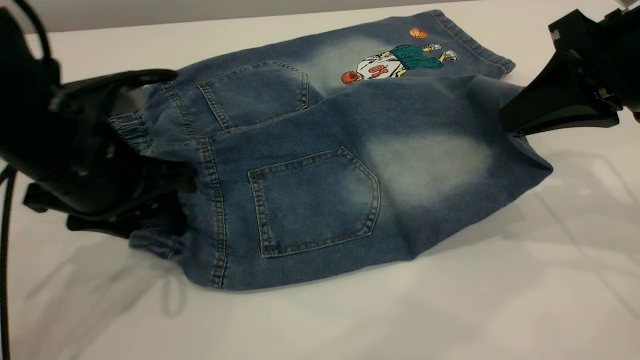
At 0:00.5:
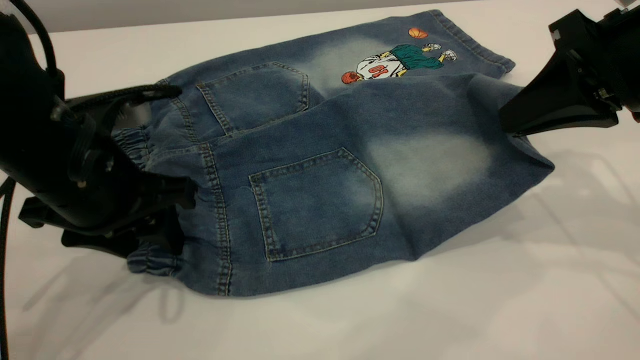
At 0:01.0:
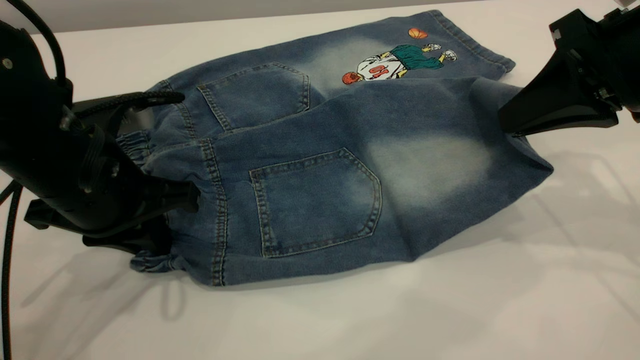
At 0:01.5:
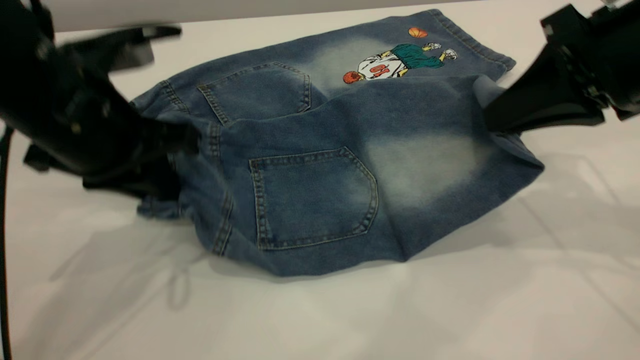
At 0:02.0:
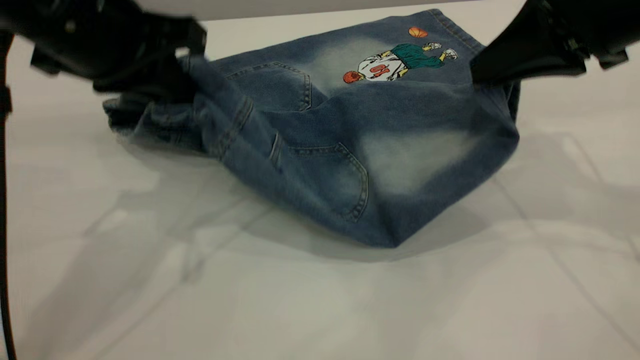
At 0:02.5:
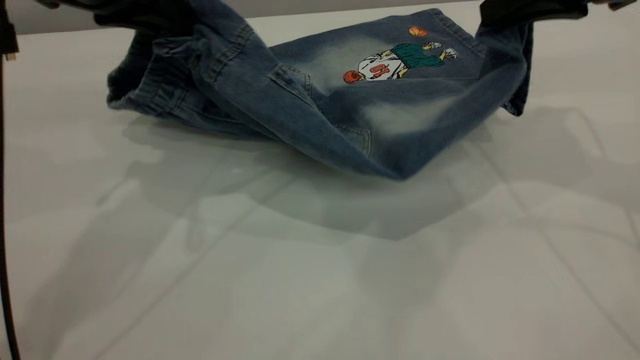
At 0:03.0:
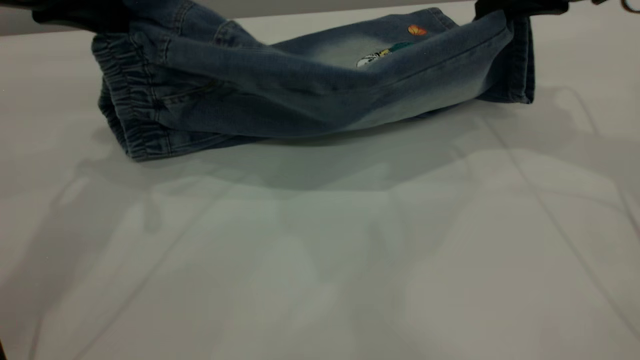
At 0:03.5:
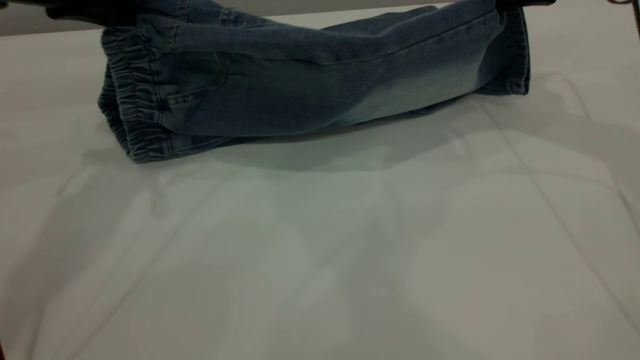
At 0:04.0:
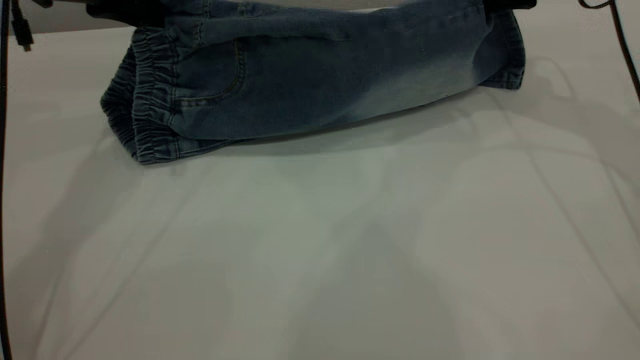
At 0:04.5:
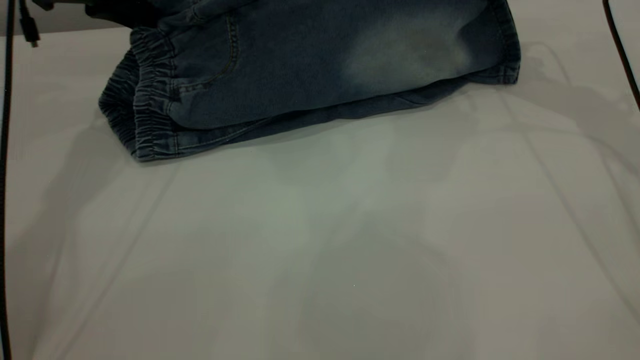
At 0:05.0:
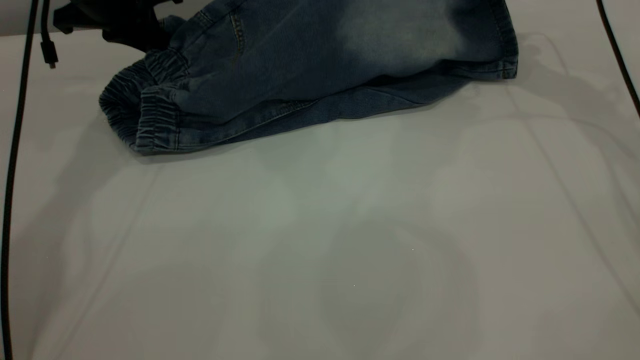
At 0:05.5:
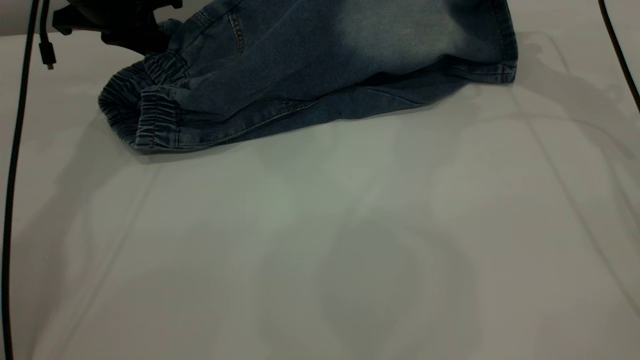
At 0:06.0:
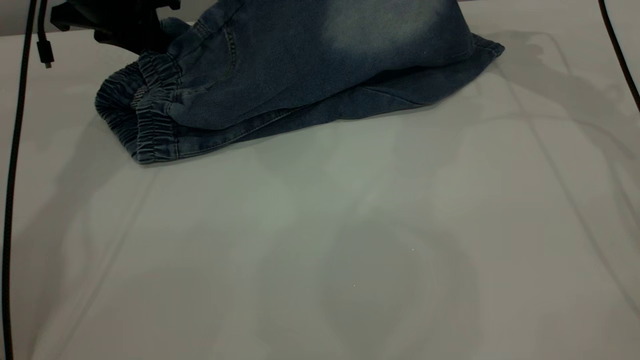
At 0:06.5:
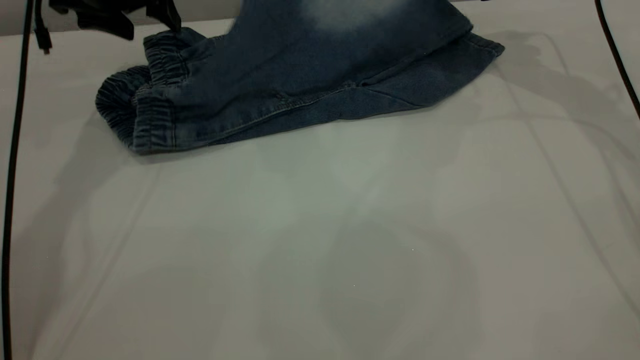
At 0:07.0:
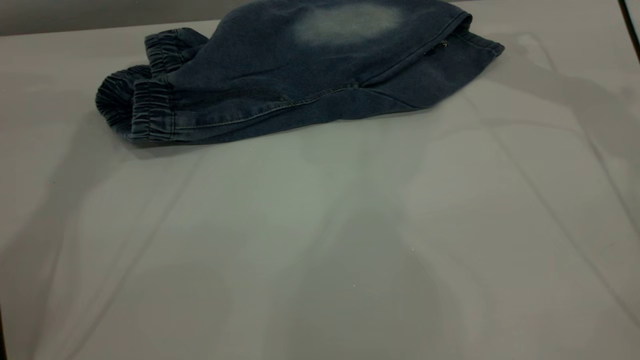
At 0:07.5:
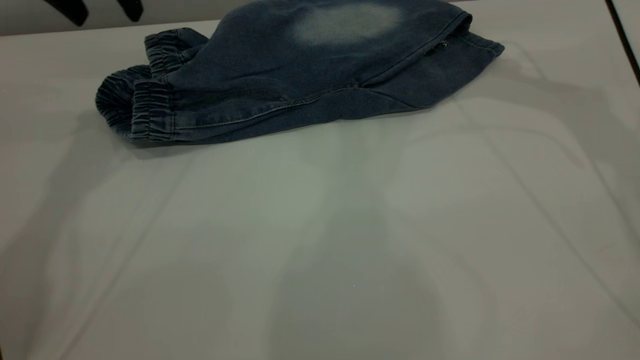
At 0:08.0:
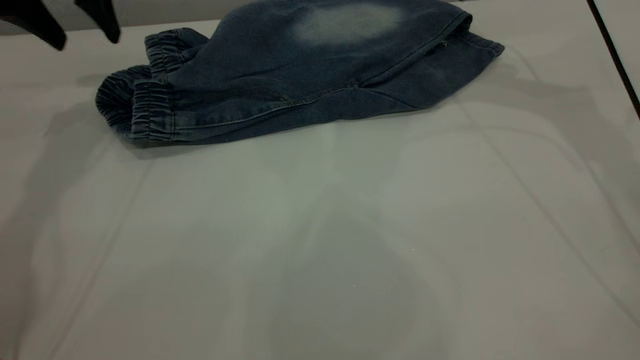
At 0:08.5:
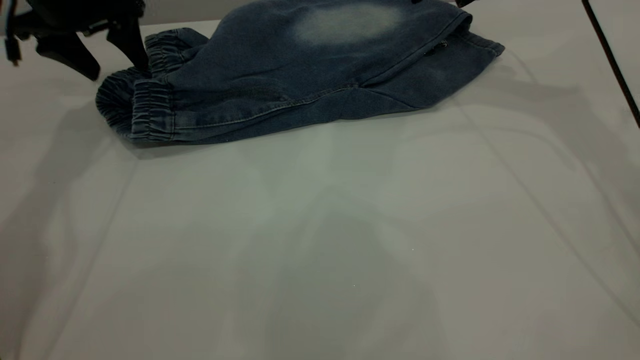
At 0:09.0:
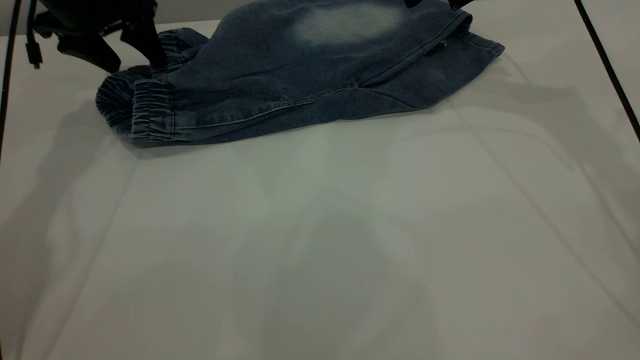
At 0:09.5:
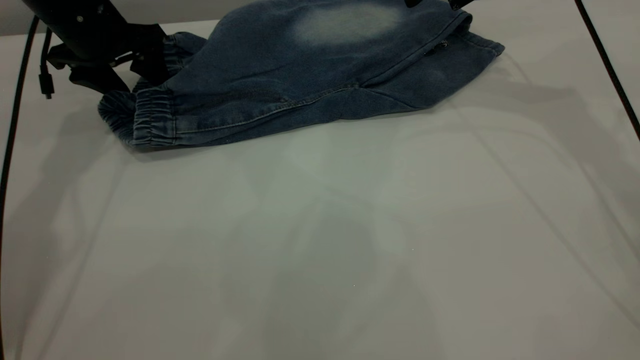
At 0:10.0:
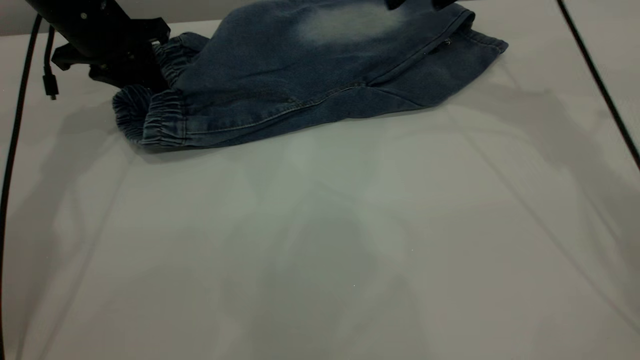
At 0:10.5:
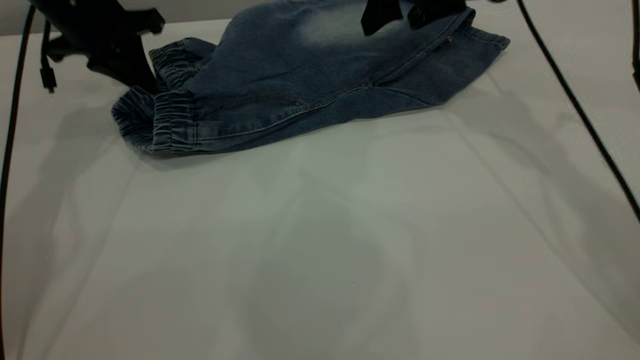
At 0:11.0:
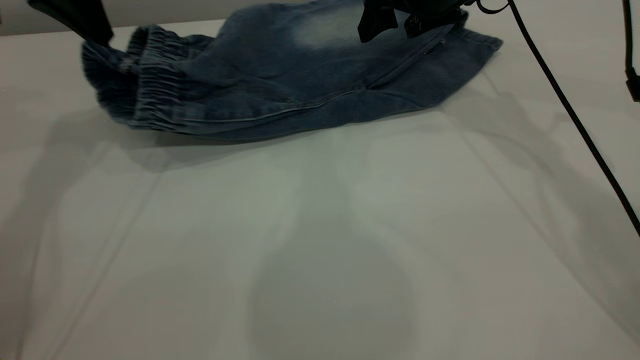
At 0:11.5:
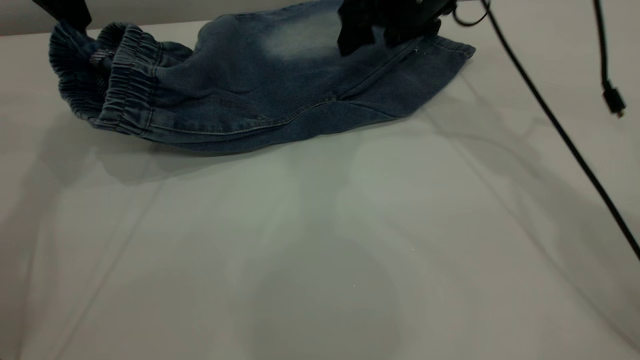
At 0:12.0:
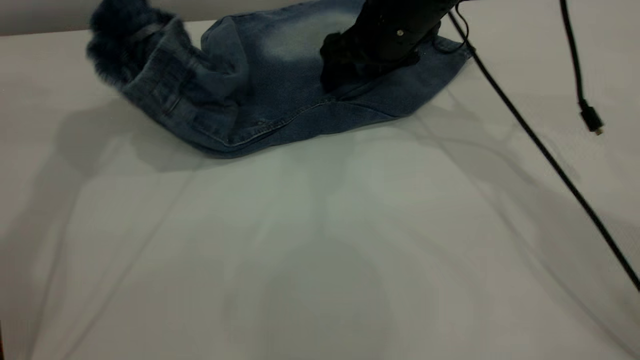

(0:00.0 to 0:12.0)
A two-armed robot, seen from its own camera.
Step, 0:00.0 - 0:07.0: Fold the bottom of the pants upward.
0:00.0 - 0:02.0: The left gripper travels upward by roughly 10 cm, and closes its fingers.
0:02.0 - 0:04.0: The left gripper is displaced forward and to the left by some 15 cm. Meanwhile the right gripper goes approximately 15 cm forward.
0:04.0 - 0:06.0: The grippers both shift forward by approximately 5 cm. The right gripper opens.
0:06.0 - 0:08.0: The right gripper moves upward, approximately 5 cm. Meanwhile the left gripper ends up approximately 5 cm from where it was, and opens.
0:08.0 - 0:10.0: The left gripper shifts roughly 10 cm downward, and closes up.
0:10.0 - 0:12.0: The left gripper heads upward, covering approximately 15 cm. The right gripper heads downward and to the left, covering roughly 10 cm.

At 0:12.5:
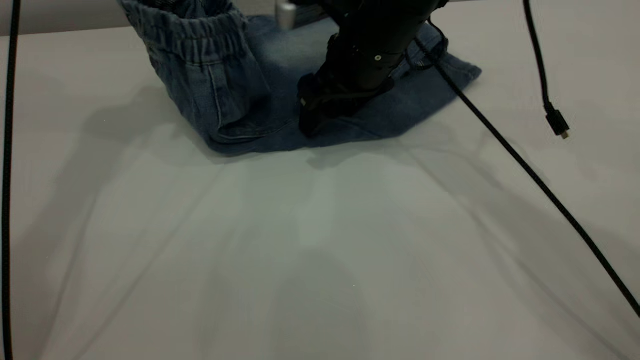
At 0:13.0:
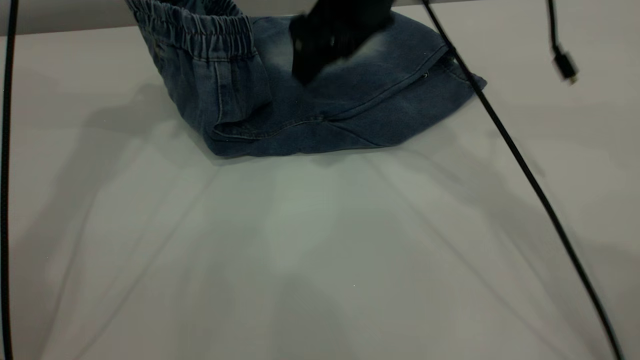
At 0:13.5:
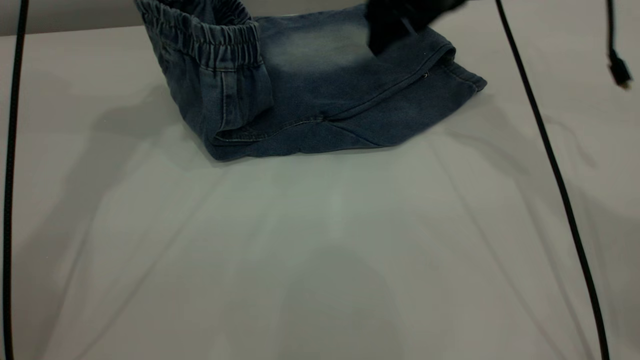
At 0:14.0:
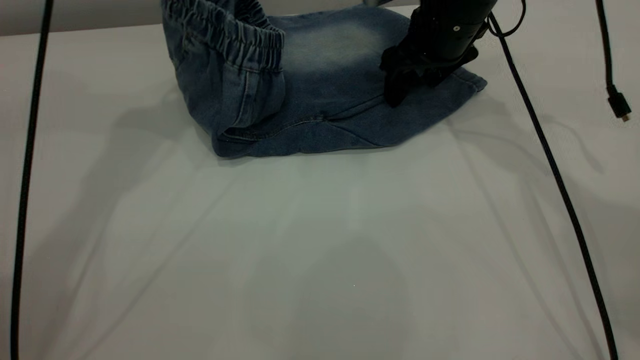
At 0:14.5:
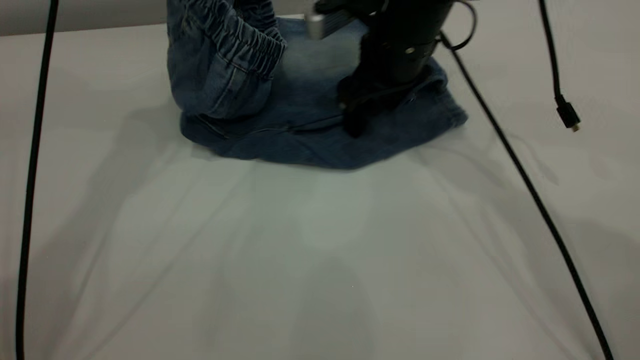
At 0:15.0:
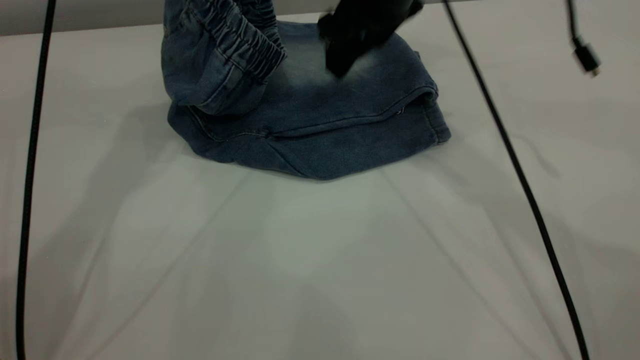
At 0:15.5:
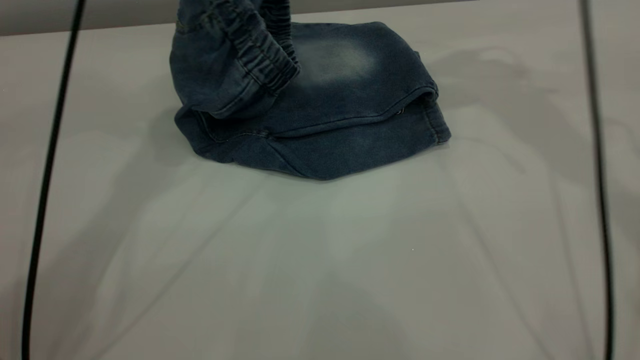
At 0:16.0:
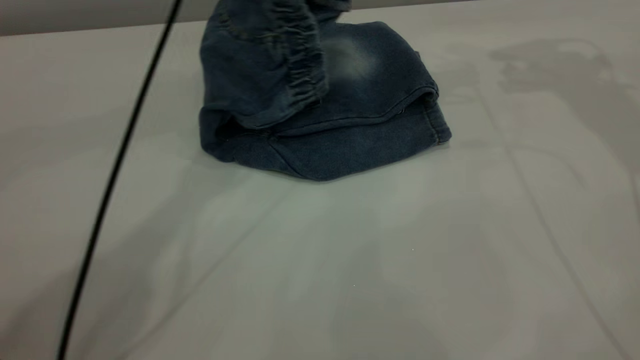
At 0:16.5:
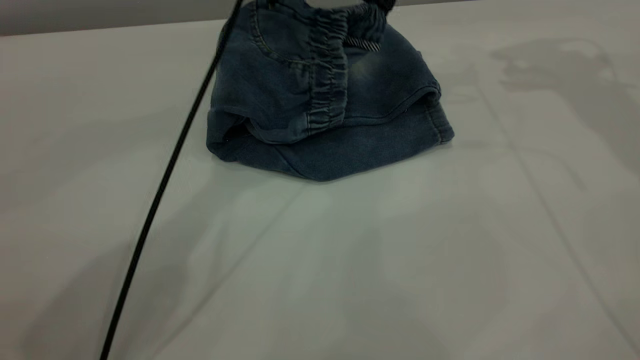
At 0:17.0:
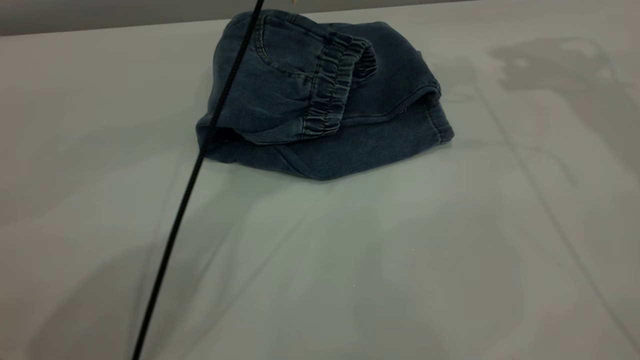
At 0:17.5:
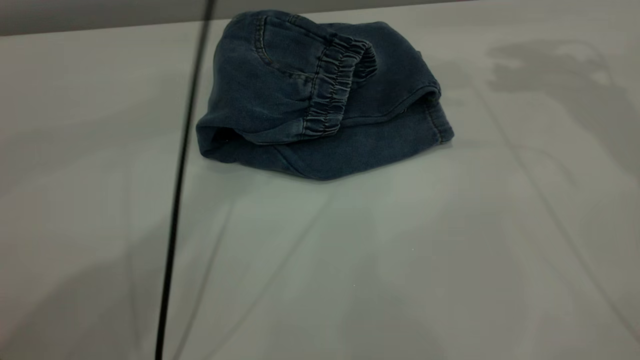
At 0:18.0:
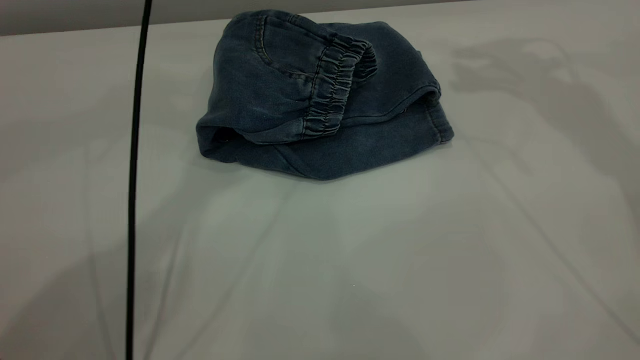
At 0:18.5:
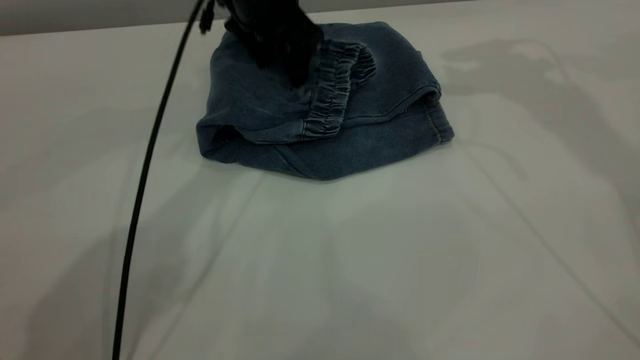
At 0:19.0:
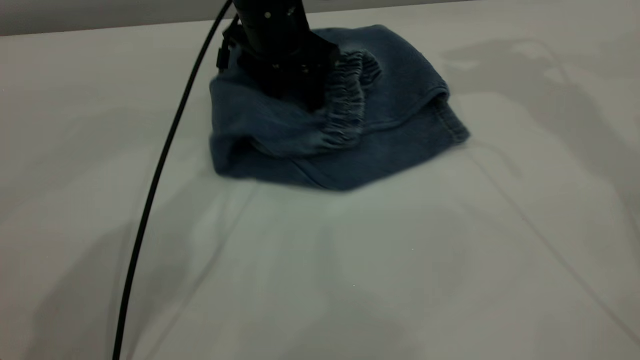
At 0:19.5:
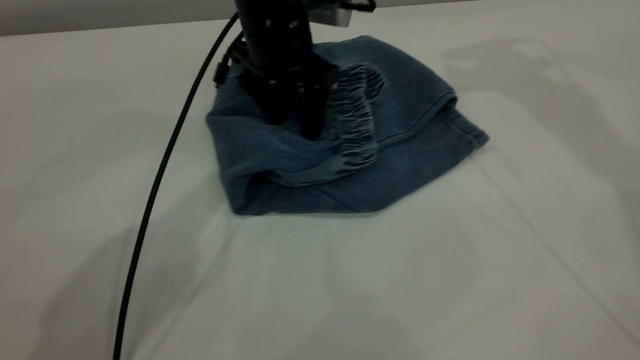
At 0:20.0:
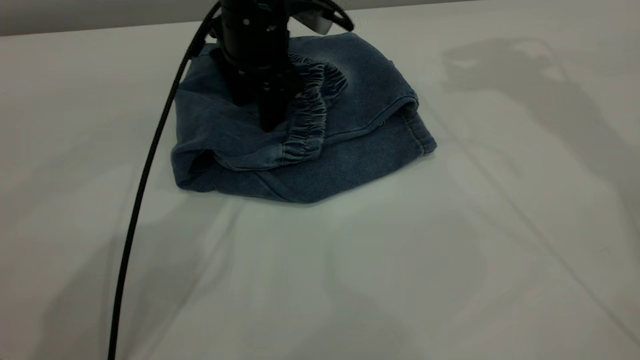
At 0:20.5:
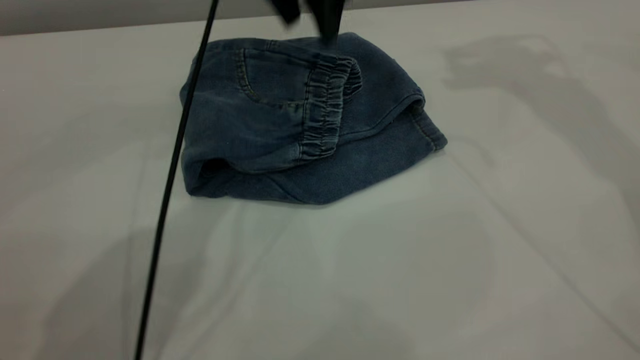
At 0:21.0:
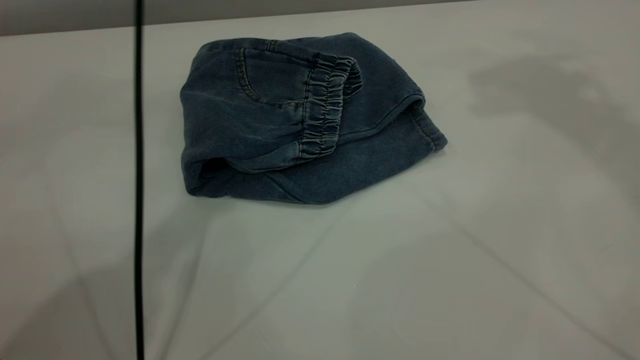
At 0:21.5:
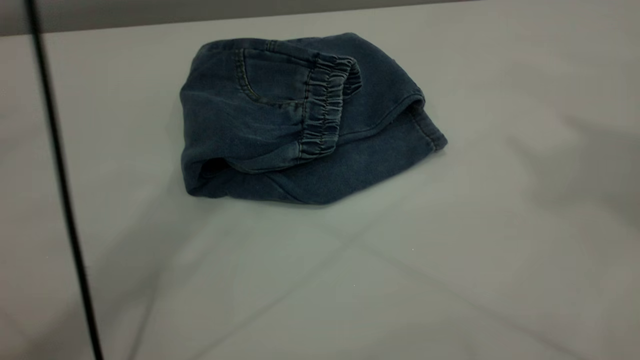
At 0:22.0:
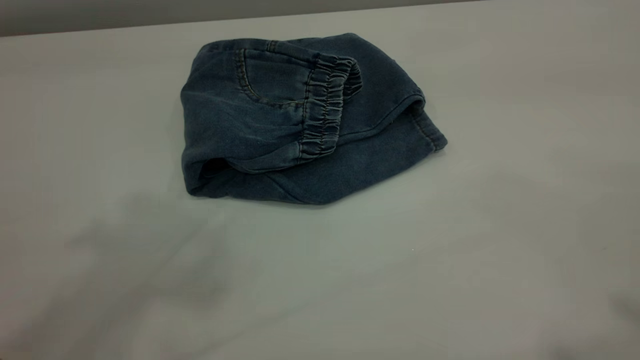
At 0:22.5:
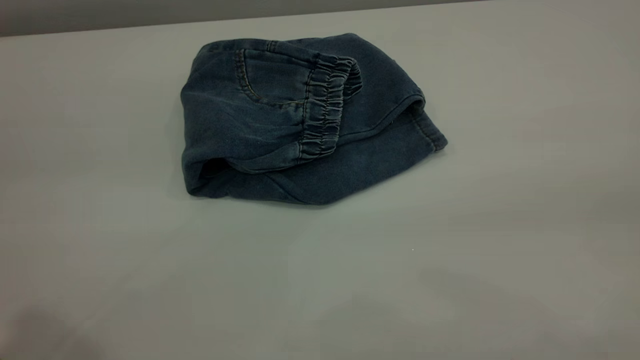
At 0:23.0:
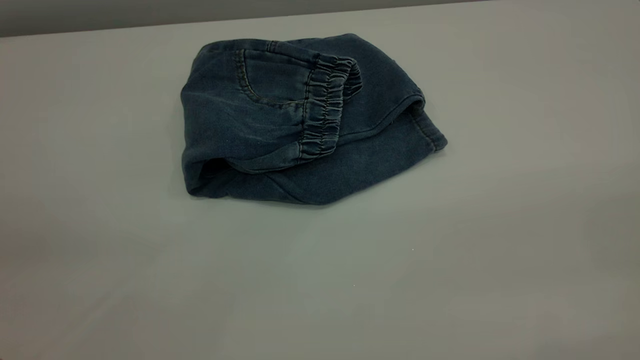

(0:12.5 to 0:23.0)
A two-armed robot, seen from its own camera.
Step, 0:12.5 - 0:17.5: Fold the pants from left to right.
0:12.5 - 0:14.5: The right gripper moves about 10 cm upward and comes back. Meanwhile the left gripper moves roughly 5 cm.
0:14.5 - 0:16.5: The left gripper goes about 20 cm to the right and downward; the right gripper is displaced to the right and upward by roughly 25 cm.
0:16.5 - 0:19.0: The left gripper goes roughly 10 cm downward and to the left, and opens up; the right gripper moves to the left, roughly 5 cm.
0:19.0 - 0:21.0: The left gripper is displaced upward by roughly 25 cm, while the right gripper heads upward and backward, covering some 20 cm.
0:21.0 - 0:23.0: The left gripper travels backward and to the left by approximately 50 cm.
